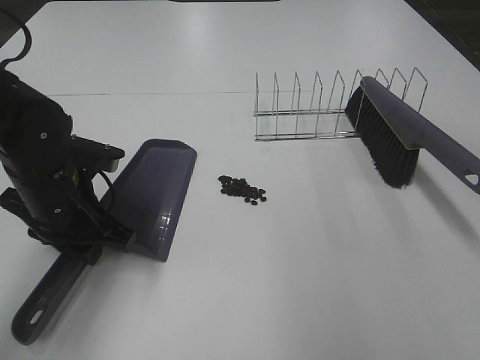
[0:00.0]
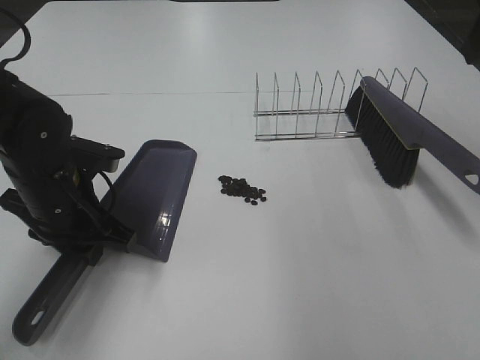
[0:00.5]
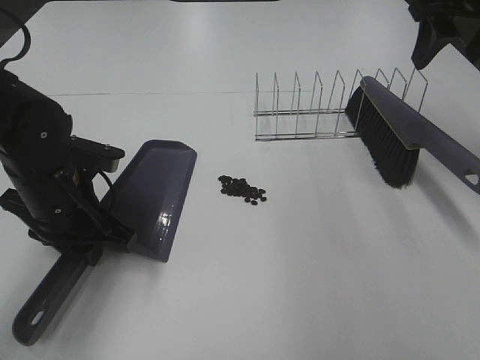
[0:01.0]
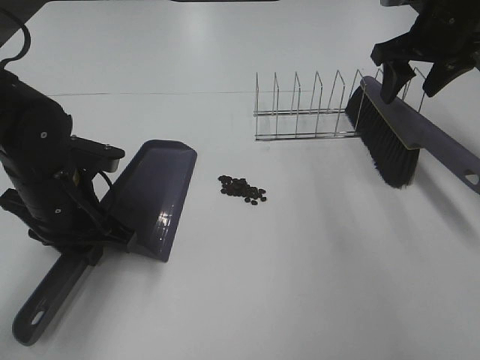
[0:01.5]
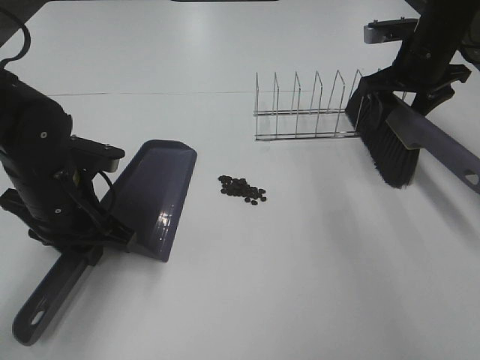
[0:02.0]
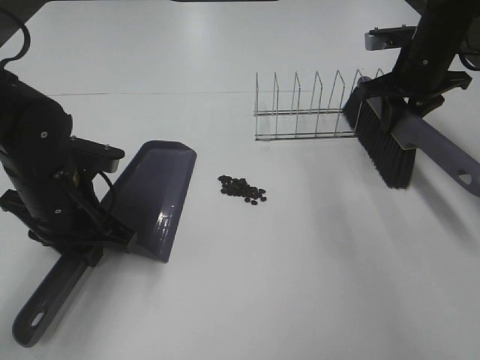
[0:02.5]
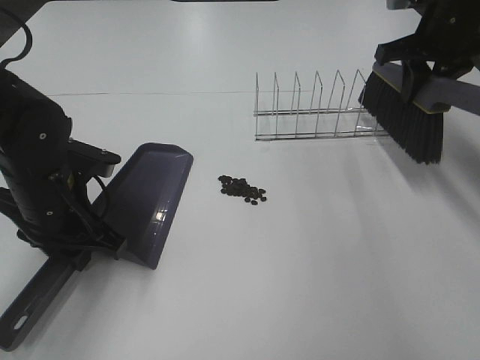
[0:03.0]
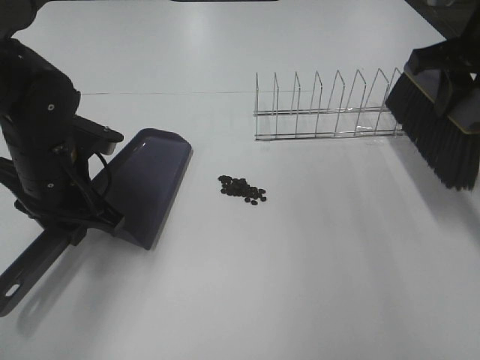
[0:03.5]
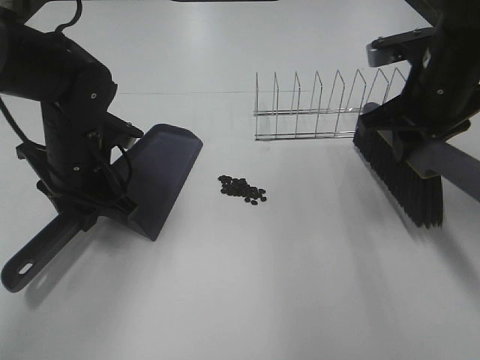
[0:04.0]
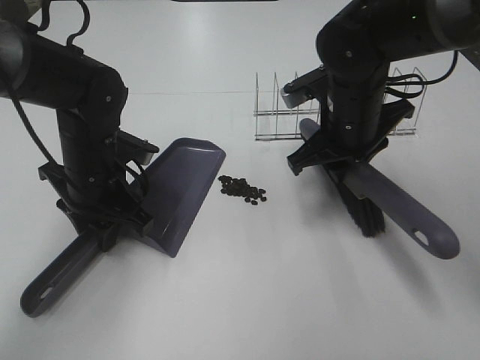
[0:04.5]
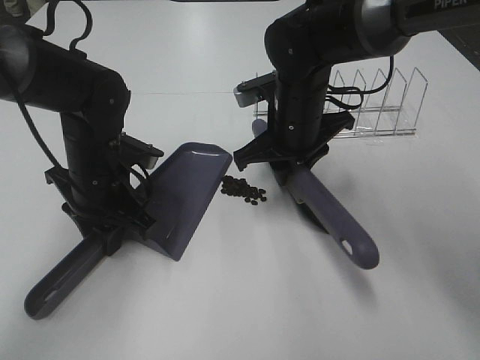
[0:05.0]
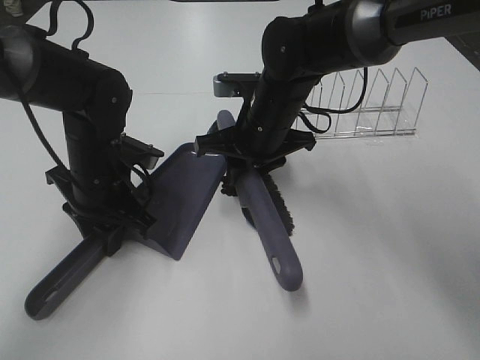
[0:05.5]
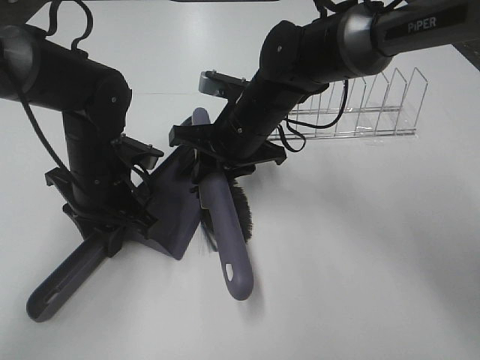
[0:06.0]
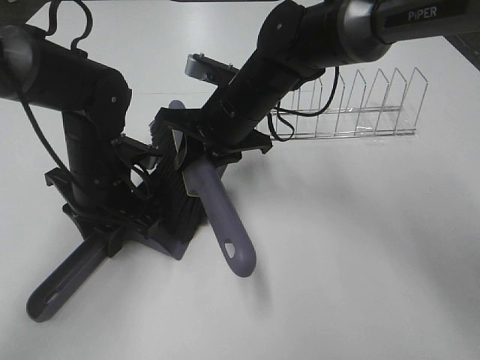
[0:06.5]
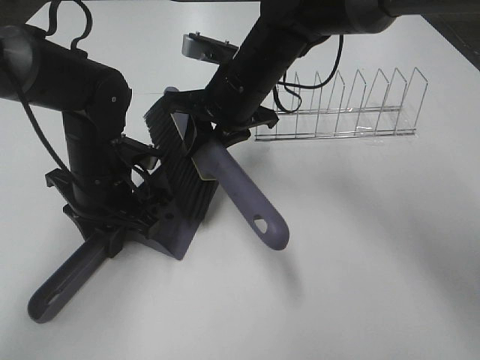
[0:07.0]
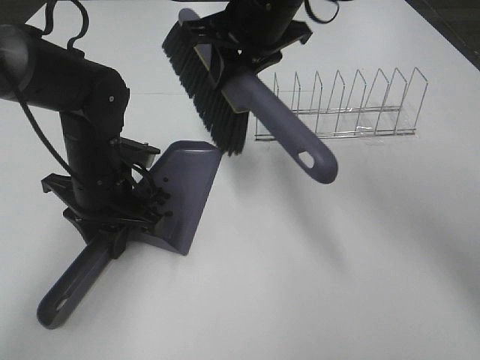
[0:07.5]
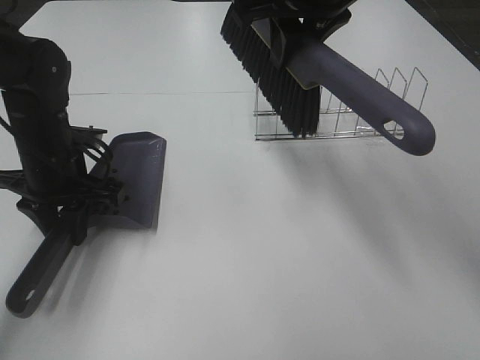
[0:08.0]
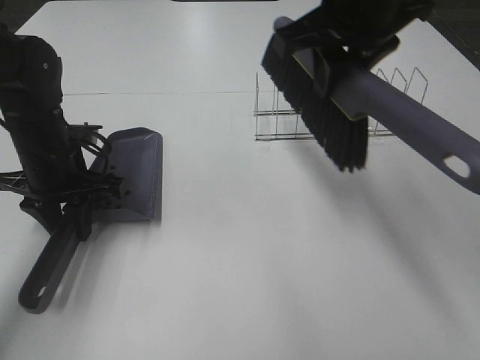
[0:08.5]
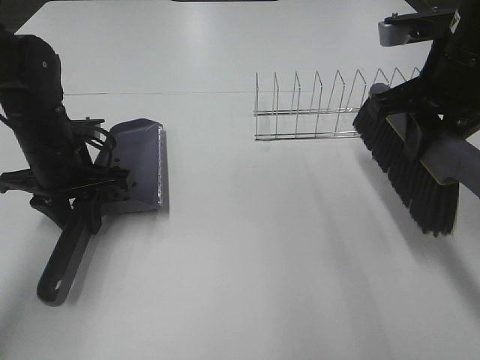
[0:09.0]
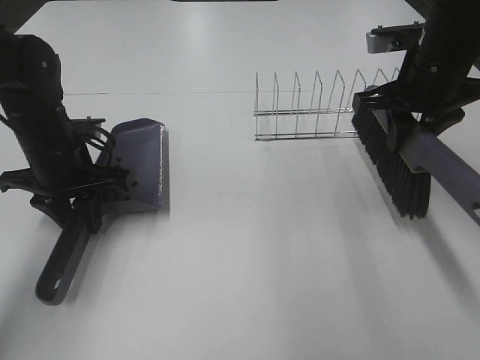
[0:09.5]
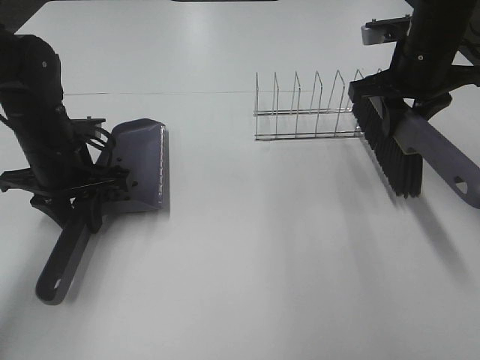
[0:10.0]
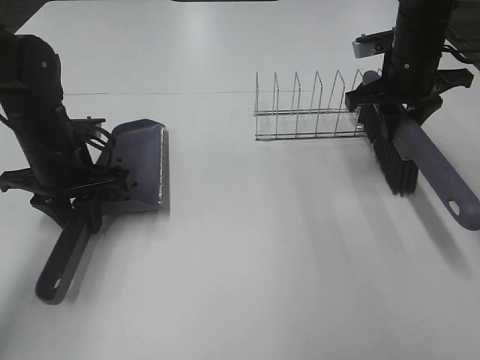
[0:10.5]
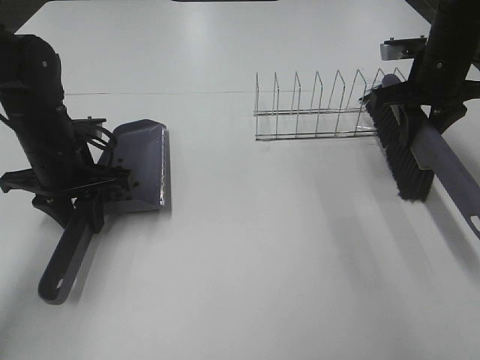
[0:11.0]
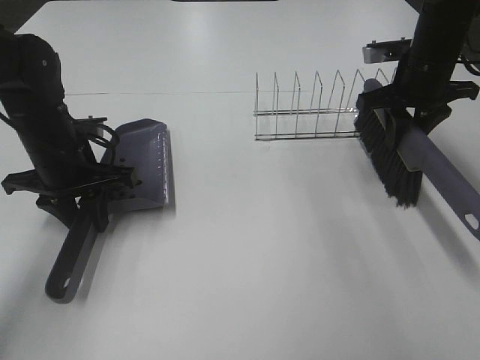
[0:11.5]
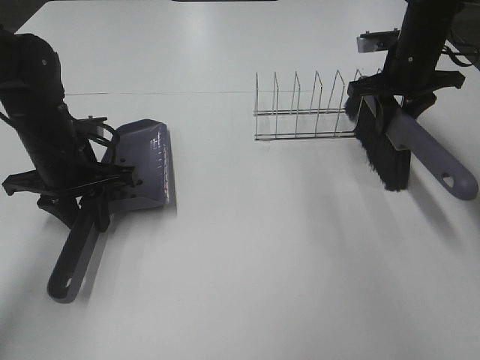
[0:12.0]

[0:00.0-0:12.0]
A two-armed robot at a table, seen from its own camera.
Task of the whole recording: Sweep Coffee Bean.
Step, 0:00.0 to 0:02.0: Right hand:grab the broom.
Step, 0:02.5 to 0:06.5: Right hand:sweep the coffee beans into the dustpan.
0:00.0 to 0:02.0: The right gripper moves forward and downward, some 35 cm.
0:02.0 to 0:04.0: The left gripper shifts roughly 5 cm forward; the right gripper is displaced backward and to the left by about 15 cm, and closes up.
0:04.0 to 0:06.0: The right gripper is displaced to the left and downward by roughly 20 cm.
0:06.0 to 0:08.0: The right gripper goes some 20 cm upward, while the left gripper moves to the left, roughly 5 cm.
0:08.0 to 0:10.0: The right gripper moves to the right and downward, about 20 cm.
0:10.0 to 0:12.0: The right gripper travels forward by about 5 cm.

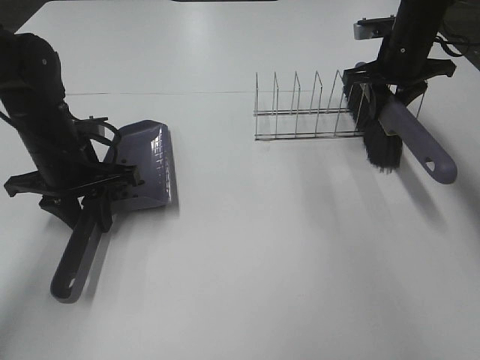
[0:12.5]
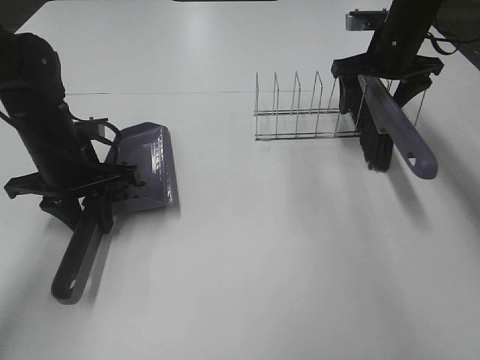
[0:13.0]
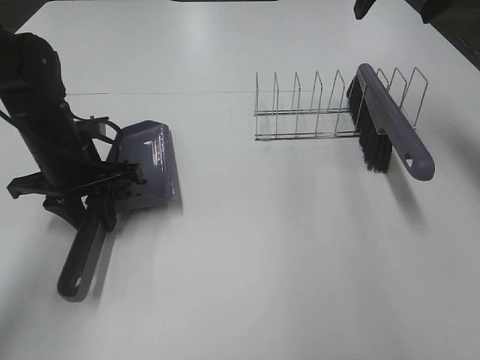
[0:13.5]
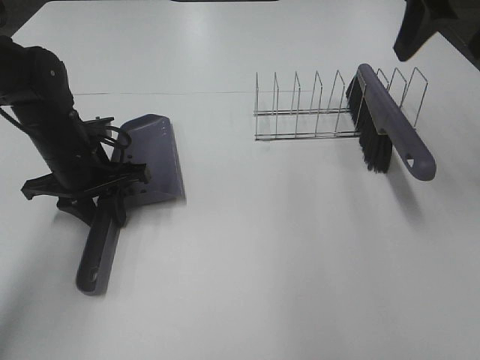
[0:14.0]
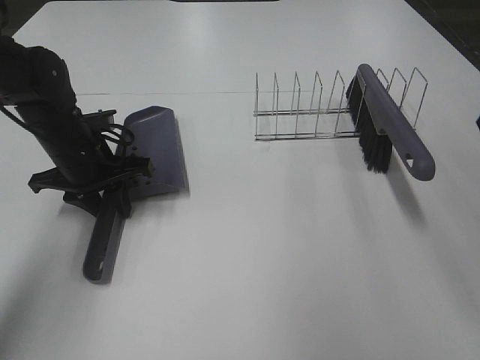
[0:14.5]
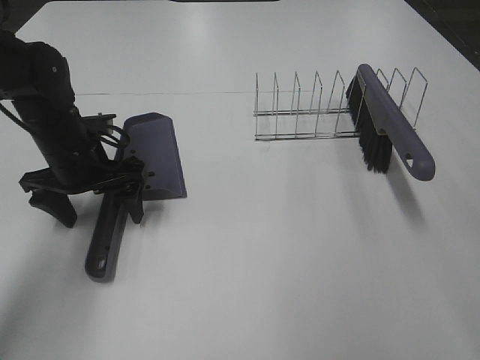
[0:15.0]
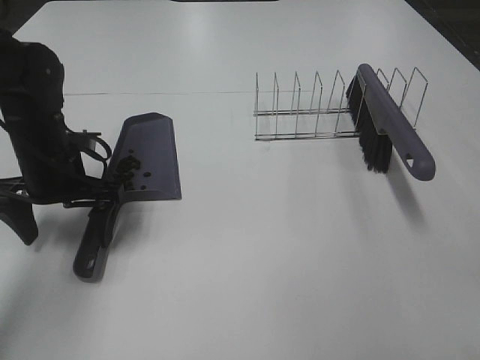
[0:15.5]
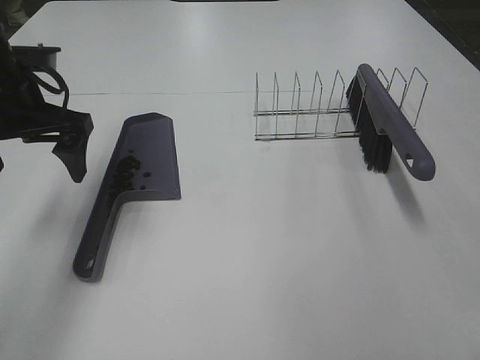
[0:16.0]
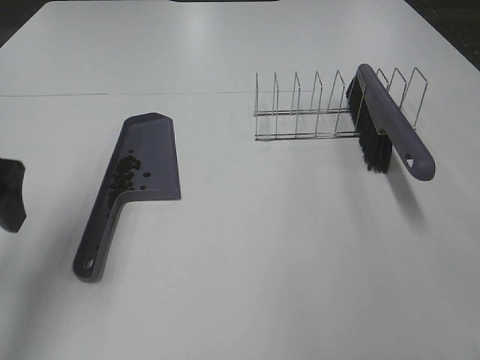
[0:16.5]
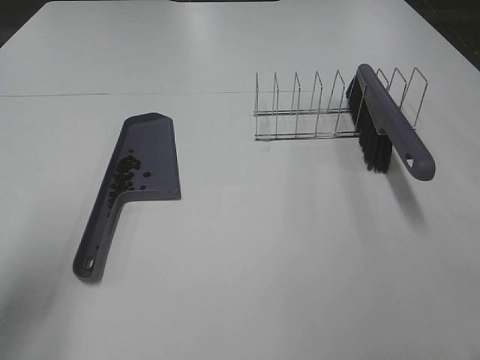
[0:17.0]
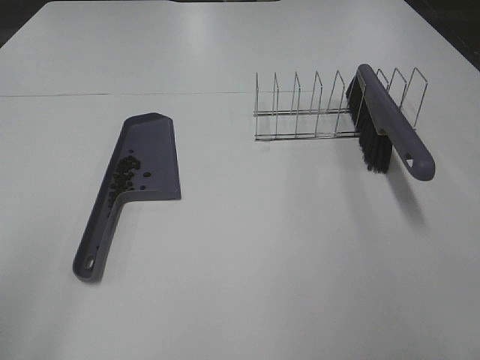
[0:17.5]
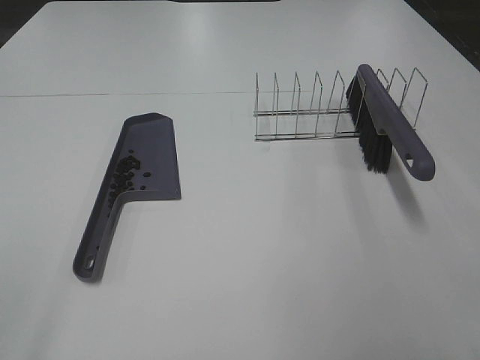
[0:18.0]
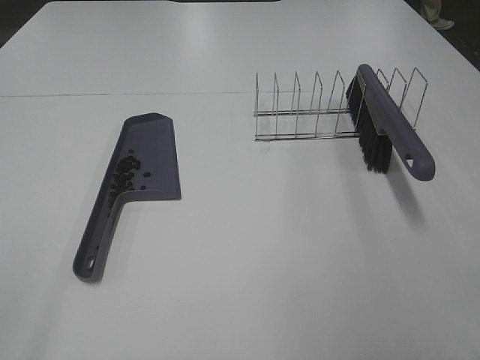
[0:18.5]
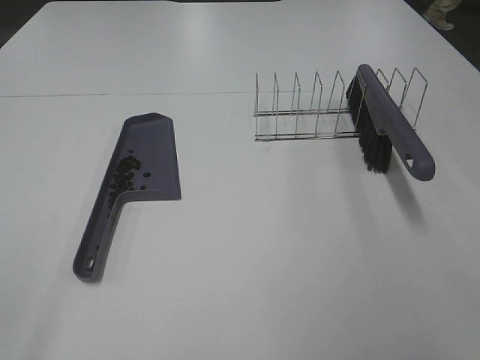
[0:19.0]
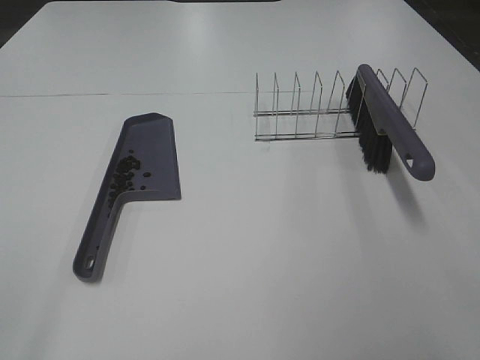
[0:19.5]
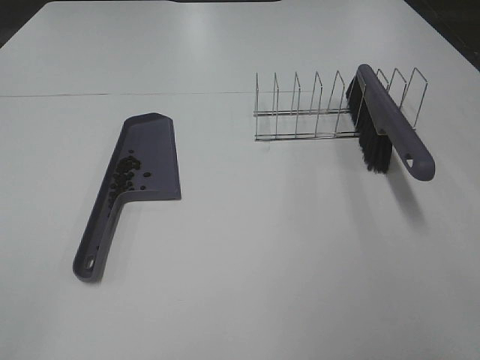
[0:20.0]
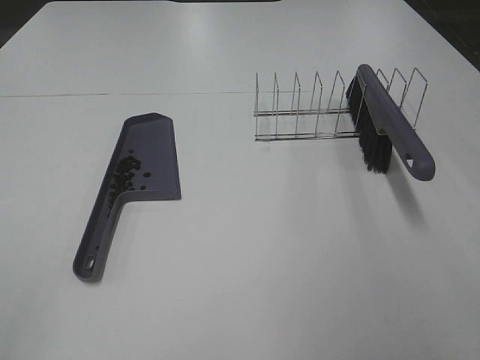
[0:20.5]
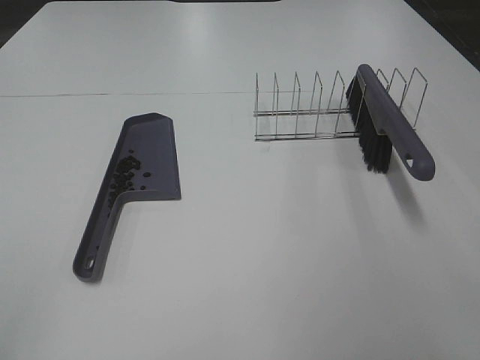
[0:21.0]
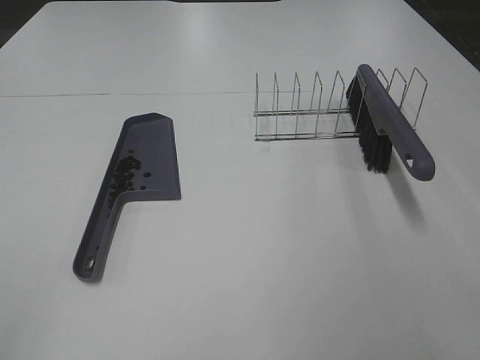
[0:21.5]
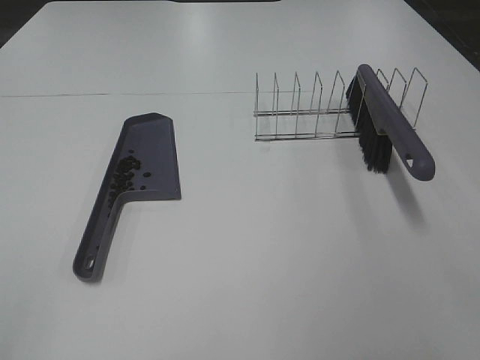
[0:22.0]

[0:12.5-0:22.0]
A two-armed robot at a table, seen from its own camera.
Task of the whole recording: Sweep Coffee Bean.
0:12.5 to 0:14.5: The right gripper heads backward and upward, covering about 35 cm, and opens.
0:14.5 to 0:16.5: The right gripper shifts some 15 cm backward and downward. The left gripper travels upward, backward and to the left by approximately 20 cm, and opens up.
0:16.5 to 0:18.0: The left gripper is displaced backward by about 25 cm.
0:20.0 to 0:22.0: Both grippers stay put.
